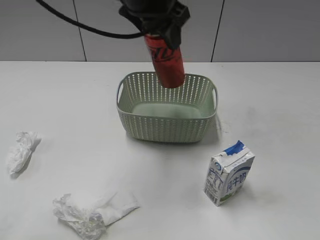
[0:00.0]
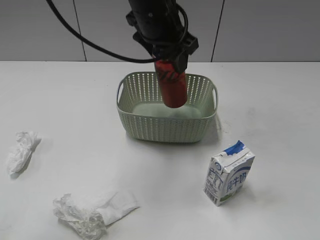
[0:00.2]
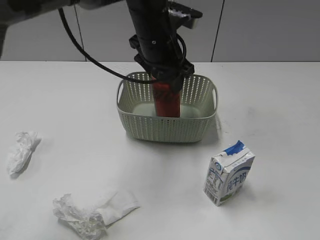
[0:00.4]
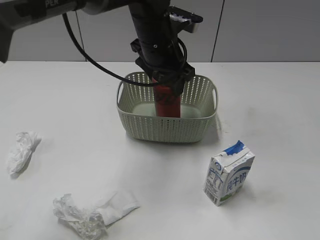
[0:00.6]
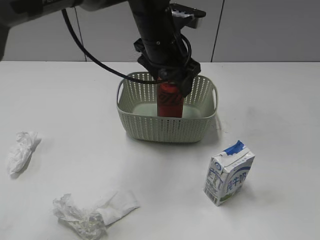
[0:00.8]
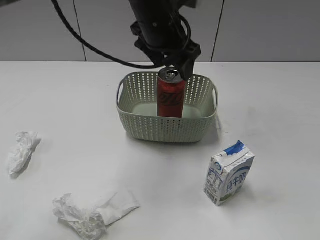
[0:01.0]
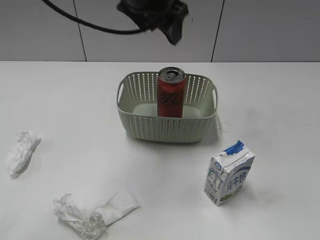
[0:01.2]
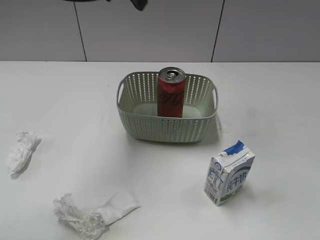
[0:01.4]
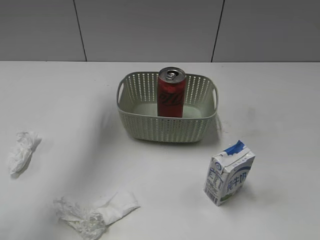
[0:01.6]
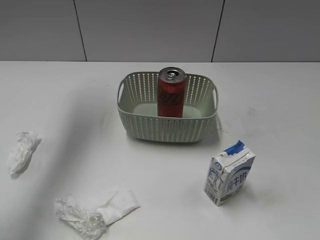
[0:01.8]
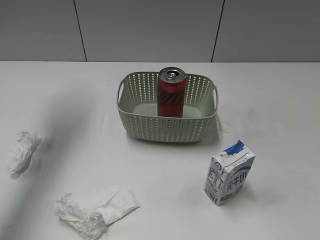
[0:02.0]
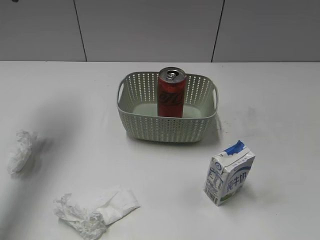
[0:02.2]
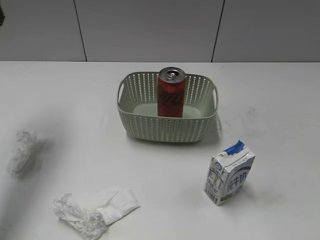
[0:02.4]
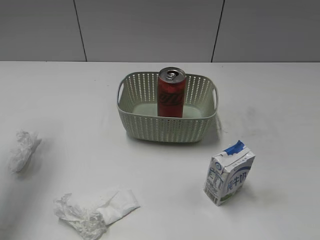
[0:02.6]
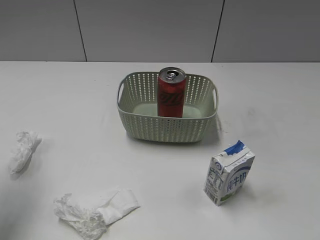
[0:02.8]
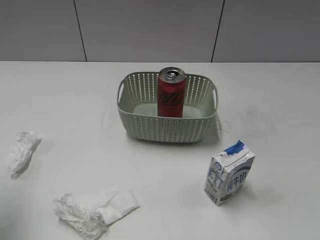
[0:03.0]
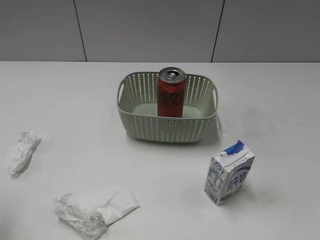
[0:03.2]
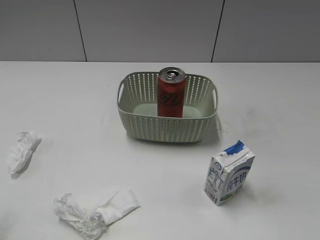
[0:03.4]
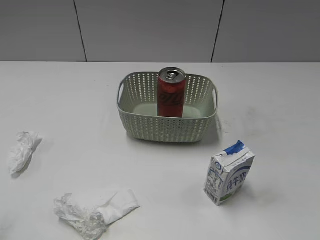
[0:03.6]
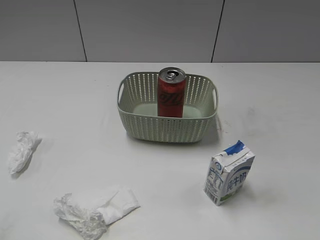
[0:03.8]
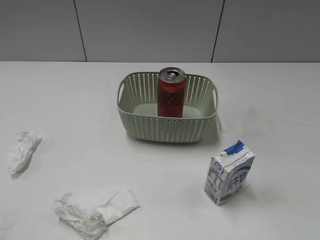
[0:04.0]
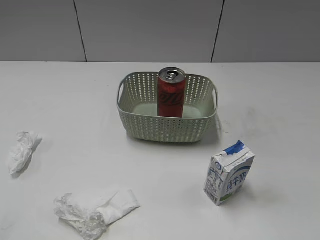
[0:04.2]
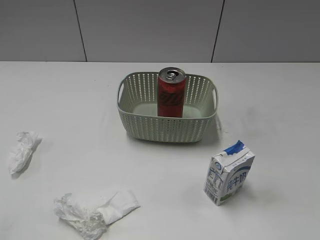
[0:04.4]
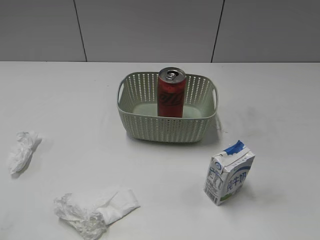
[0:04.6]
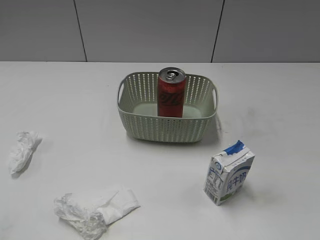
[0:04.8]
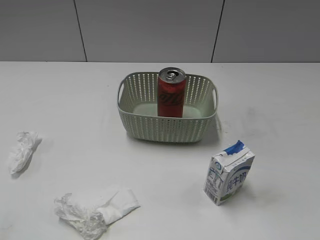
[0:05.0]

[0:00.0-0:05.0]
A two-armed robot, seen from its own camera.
0:00.0 to 0:01.6: The left gripper moves to the left and forward, approximately 15 cm, goes downward and returns, roughly 10 cm each way, and opens.
0:01.6 to 0:03.4: The left gripper moves backward, to the left and downward, approximately 35 cm.

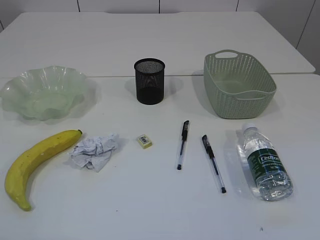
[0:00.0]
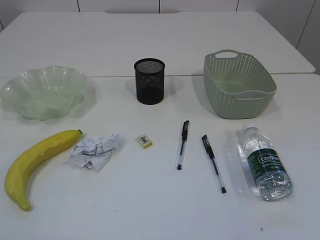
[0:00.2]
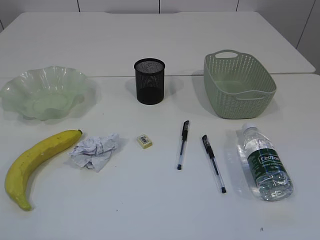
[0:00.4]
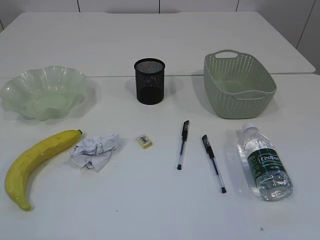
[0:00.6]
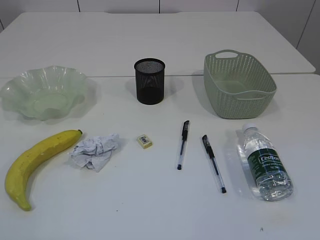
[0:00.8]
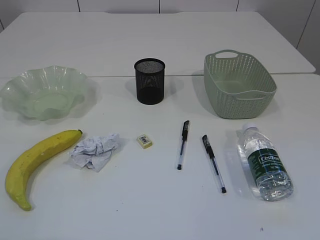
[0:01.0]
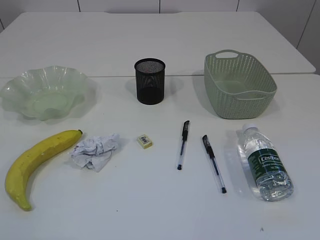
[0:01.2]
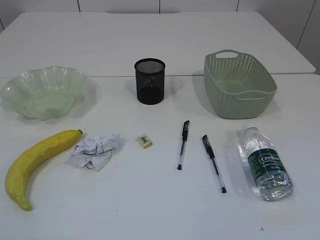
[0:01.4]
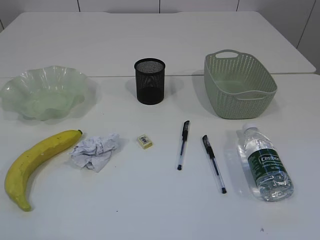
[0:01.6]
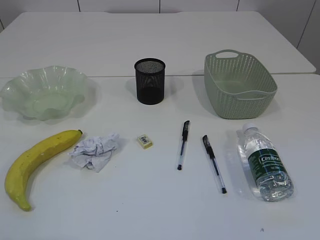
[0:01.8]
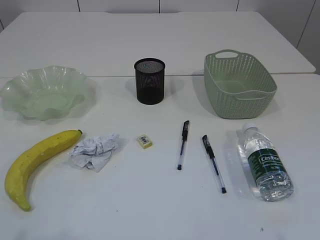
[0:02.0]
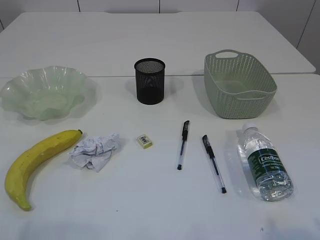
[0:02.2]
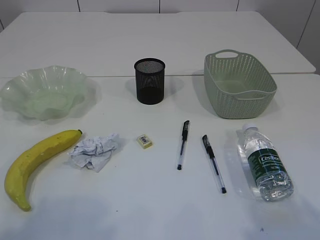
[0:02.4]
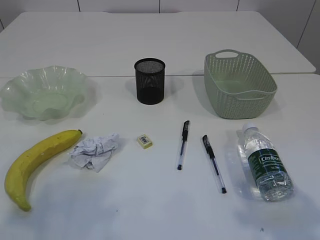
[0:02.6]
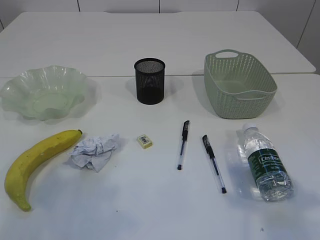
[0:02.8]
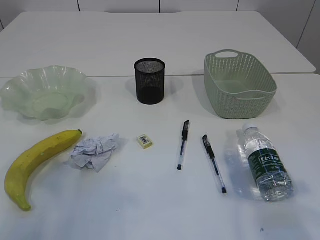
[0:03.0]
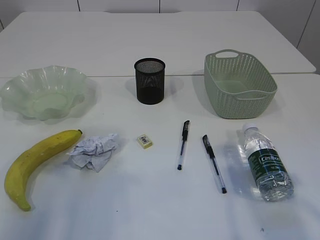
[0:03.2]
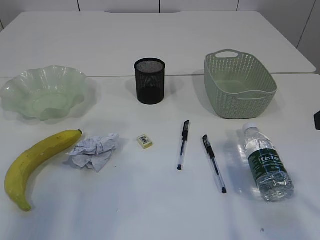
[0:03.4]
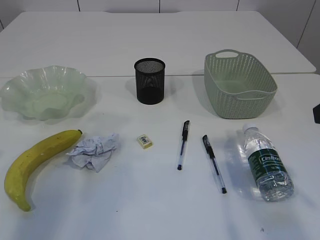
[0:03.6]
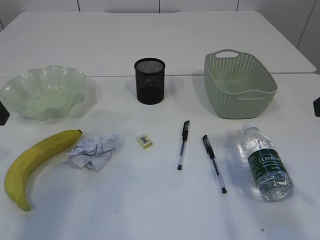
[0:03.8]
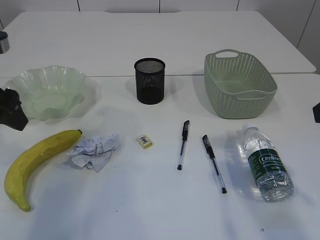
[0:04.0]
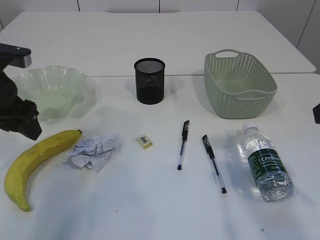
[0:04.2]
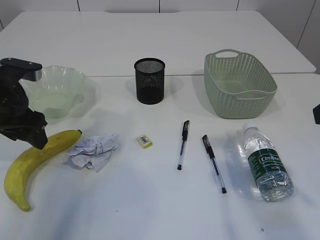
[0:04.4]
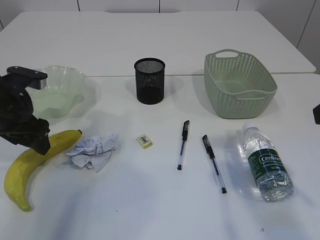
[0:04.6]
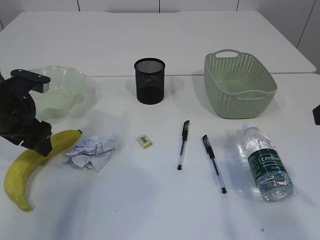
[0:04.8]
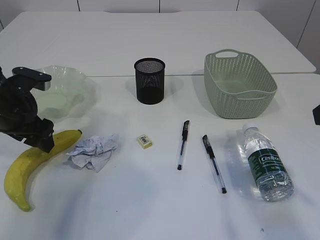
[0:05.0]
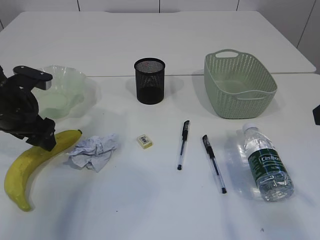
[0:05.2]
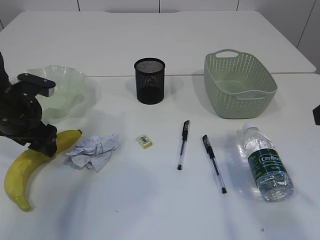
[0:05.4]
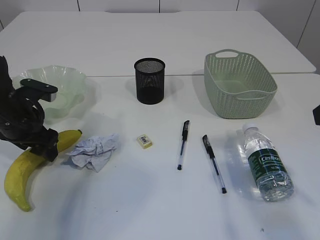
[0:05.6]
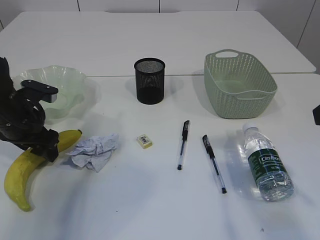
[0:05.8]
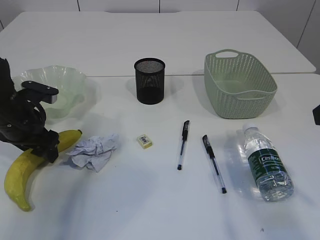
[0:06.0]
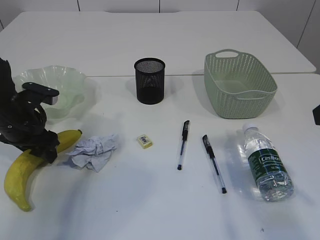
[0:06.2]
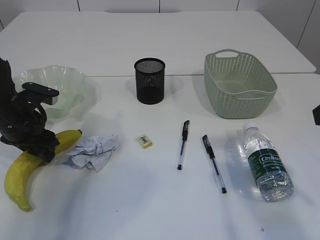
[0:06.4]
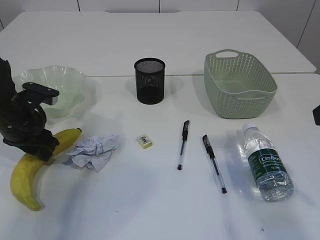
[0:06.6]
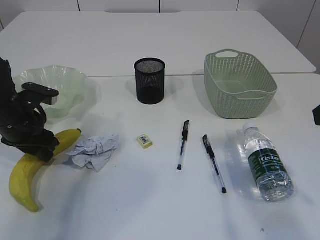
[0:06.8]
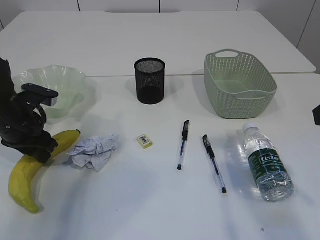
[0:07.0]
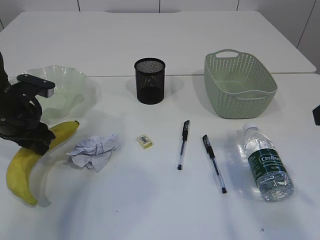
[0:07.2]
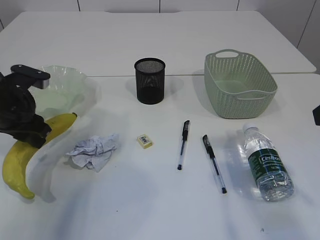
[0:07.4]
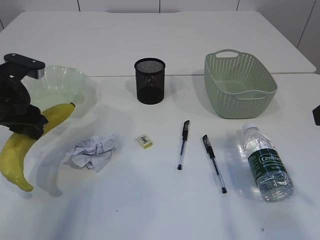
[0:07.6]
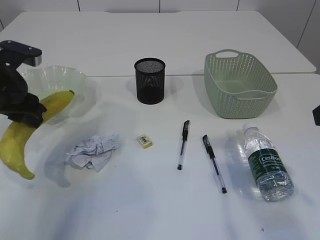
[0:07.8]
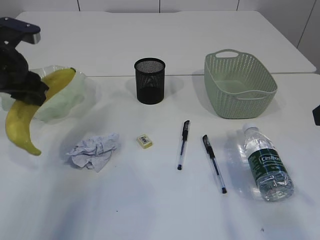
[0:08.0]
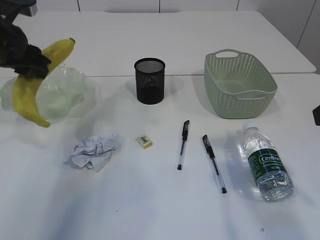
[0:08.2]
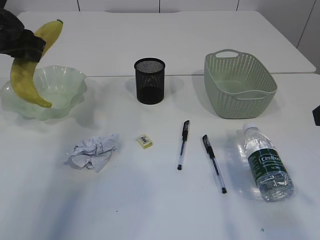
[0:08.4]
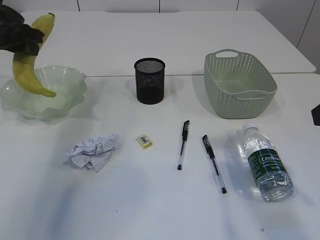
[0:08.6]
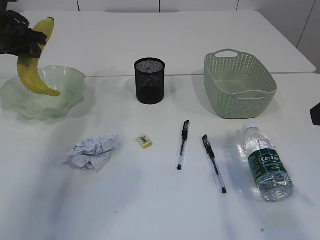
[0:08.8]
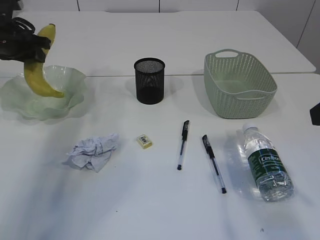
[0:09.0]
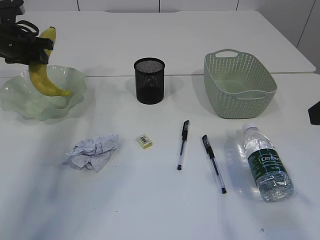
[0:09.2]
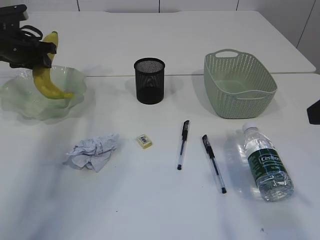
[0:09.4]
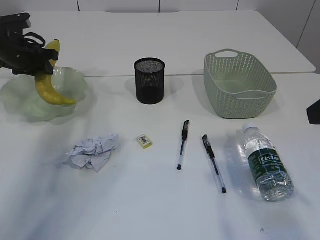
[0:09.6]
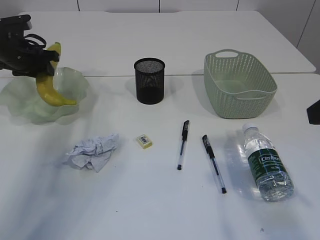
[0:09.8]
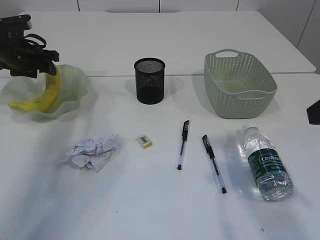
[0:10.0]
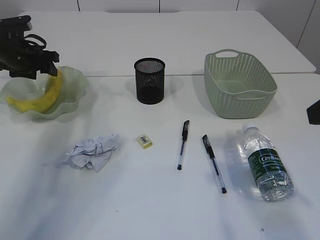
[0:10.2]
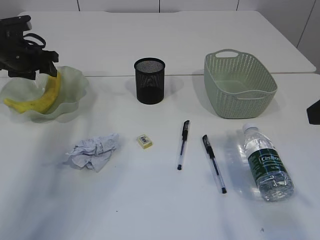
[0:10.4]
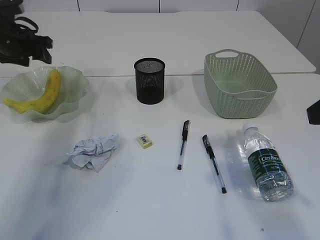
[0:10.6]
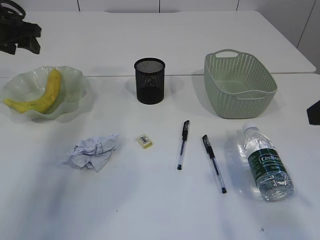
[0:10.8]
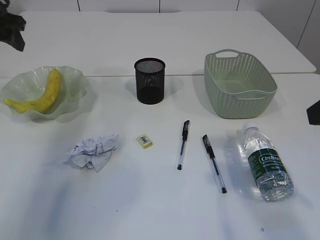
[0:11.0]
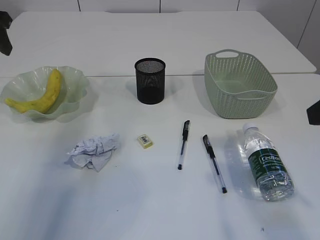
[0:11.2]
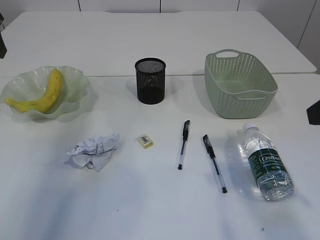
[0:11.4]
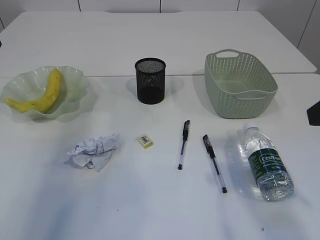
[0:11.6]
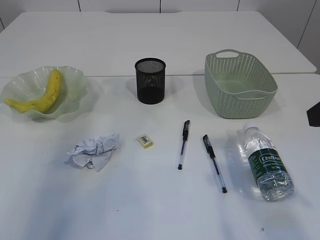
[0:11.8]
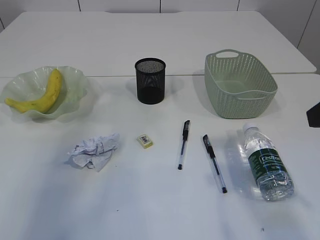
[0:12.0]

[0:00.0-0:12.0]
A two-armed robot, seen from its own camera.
Step, 0:07.6 to 0:10.4: Place the banana in the plate.
0:01.6 to 0:03.0: The grippers both shift forward by roughly 15 cm.
0:03.0 to 0:04.4: The left gripper moves forward and downward, about 20 cm.
0:04.4 to 0:06.0: The left gripper moves downward, roughly 5 cm.
0:06.0 to 0:07.6: The left gripper travels upward by approximately 5 cm, and closes its fingers.
0:07.6 to 0:09.0: The left gripper is displaced forward by some 15 cm.
0:09.0 to 0:10.4: The grippers move only a little.
0:10.4 to 0:12.0: The left gripper goes roughly 25 cm backward and upward.

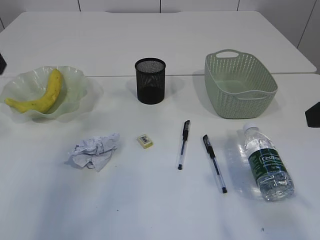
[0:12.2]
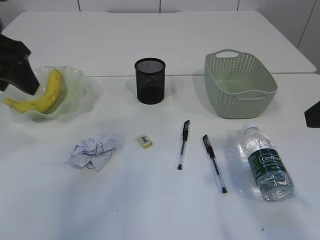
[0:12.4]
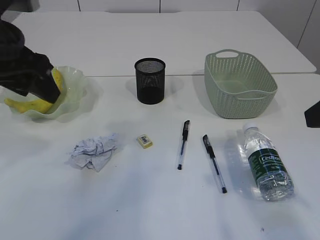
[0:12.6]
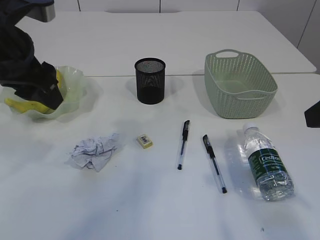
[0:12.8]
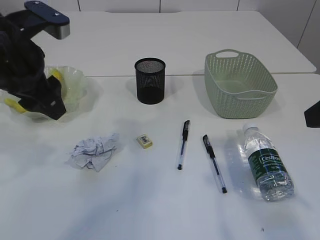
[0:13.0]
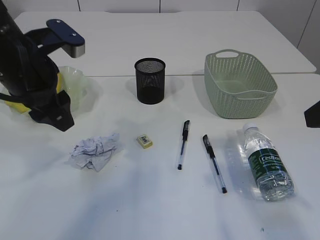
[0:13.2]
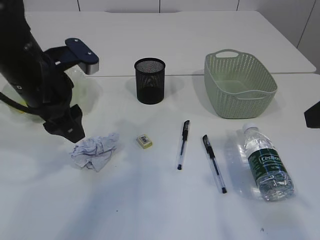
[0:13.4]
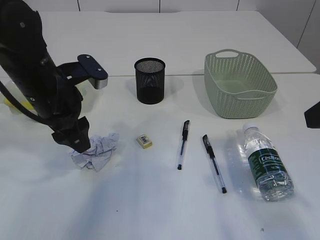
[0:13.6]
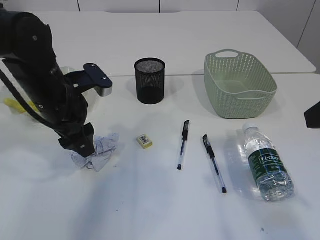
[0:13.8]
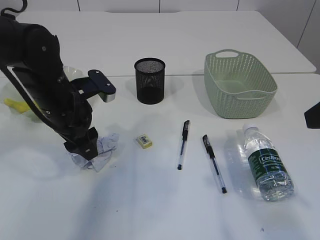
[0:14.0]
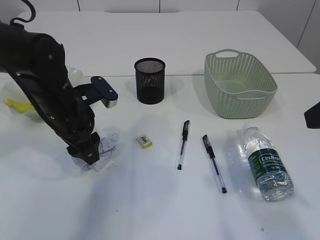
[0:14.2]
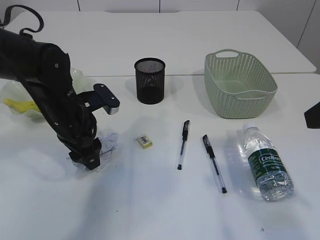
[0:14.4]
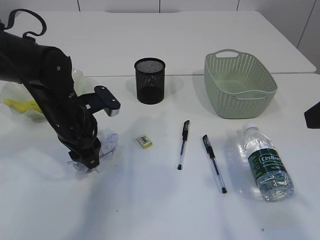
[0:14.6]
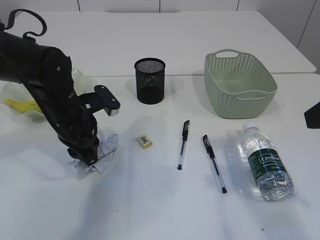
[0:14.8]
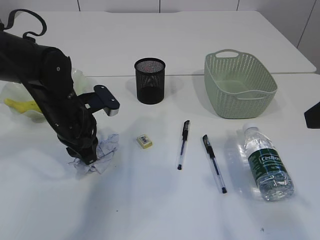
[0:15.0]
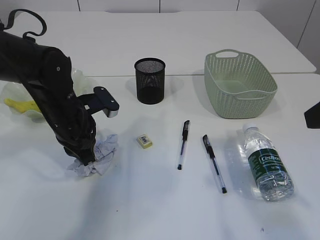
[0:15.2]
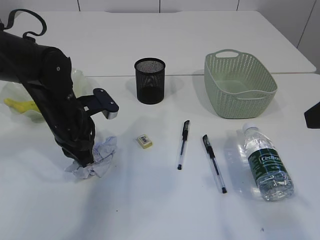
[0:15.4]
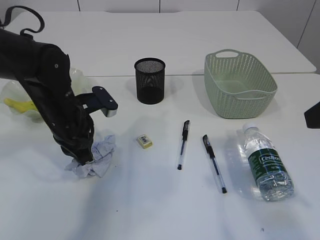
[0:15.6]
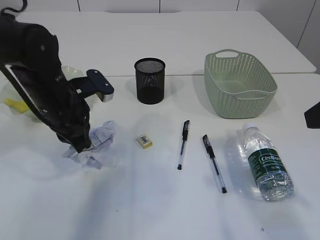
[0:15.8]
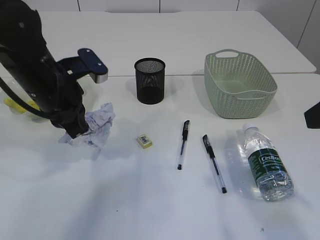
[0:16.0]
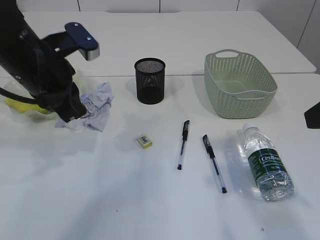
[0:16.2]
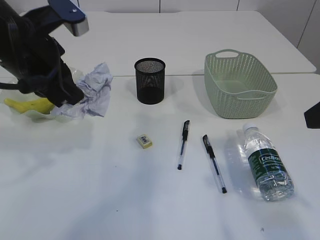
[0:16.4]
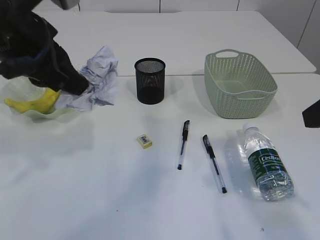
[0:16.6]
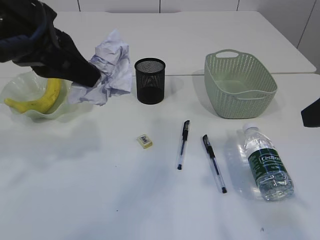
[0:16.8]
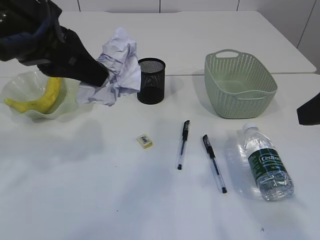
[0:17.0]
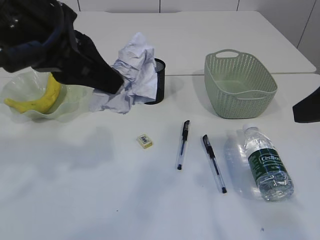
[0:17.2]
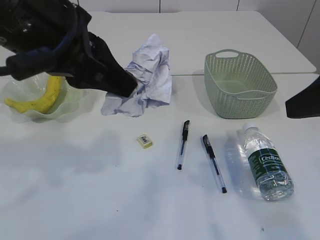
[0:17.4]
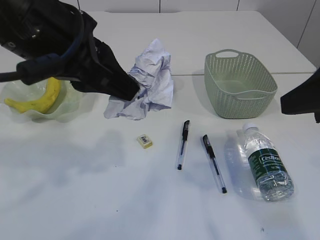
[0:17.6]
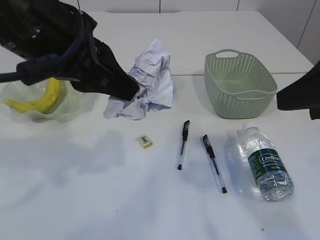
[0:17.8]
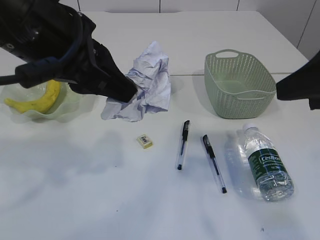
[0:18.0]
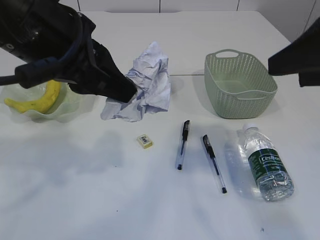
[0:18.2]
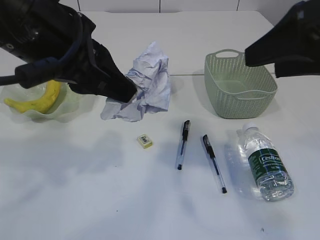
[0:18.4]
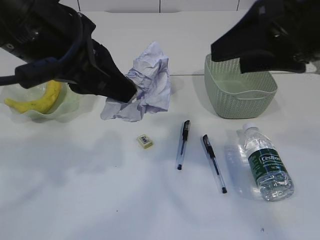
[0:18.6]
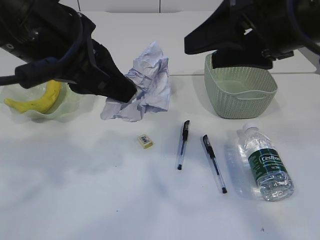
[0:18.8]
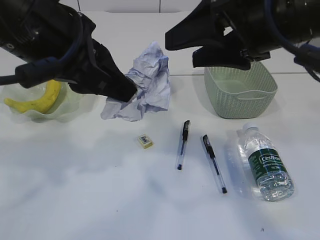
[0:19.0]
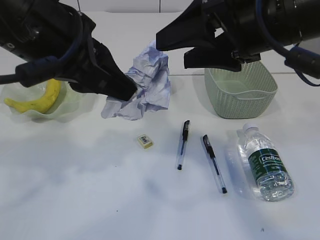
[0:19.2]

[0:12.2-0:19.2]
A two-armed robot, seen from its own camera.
Step, 0:12.2 to 0:16.0: Pick up the waste paper.
0:12.2 to 0:13.6: The left gripper goes some 15 cm downward and to the right.
0:13.6 to 0:15.0: The left gripper travels downward by some 5 cm, and closes.
0:15.0 to 0:16.4: The left gripper shifts roughly 15 cm upward.
0:16.4 to 0:17.8: The left gripper shifts approximately 10 cm backward and to the right.
0:17.8 to 0:19.2: The right gripper shifts some 15 cm to the left and forward.
